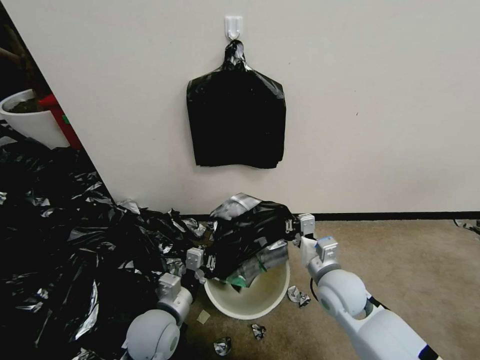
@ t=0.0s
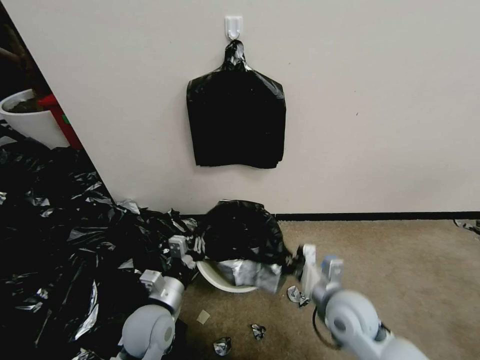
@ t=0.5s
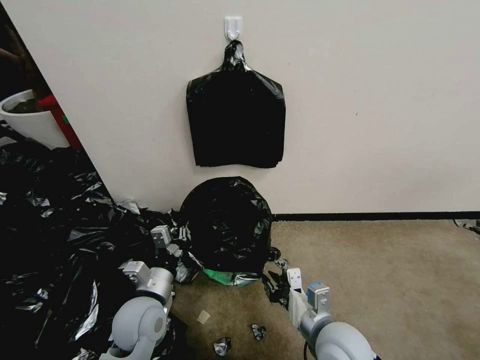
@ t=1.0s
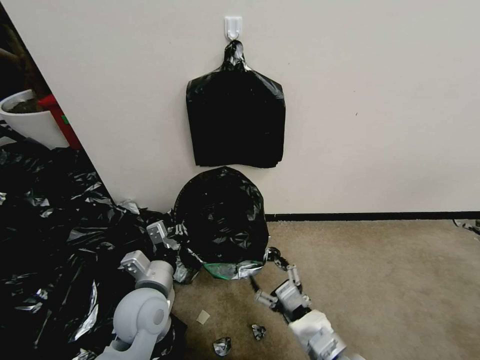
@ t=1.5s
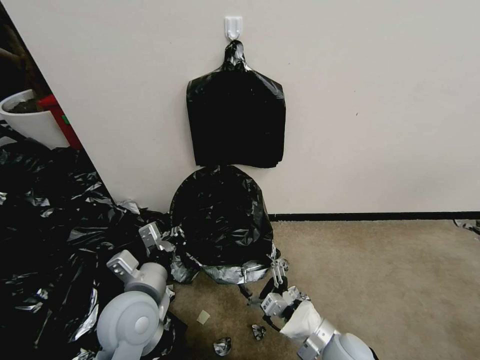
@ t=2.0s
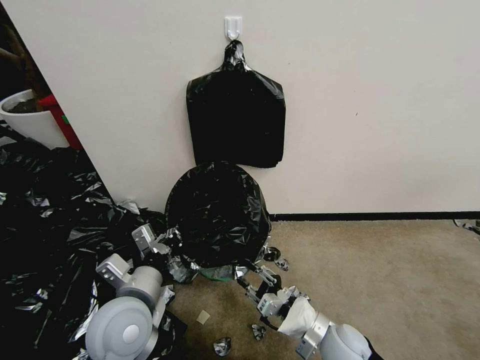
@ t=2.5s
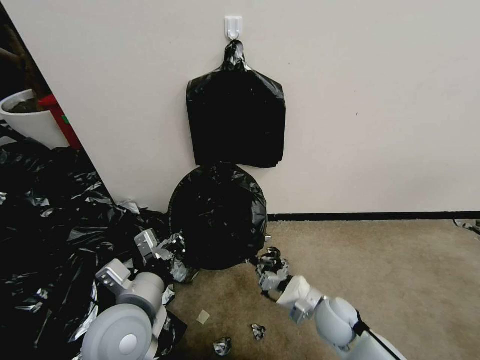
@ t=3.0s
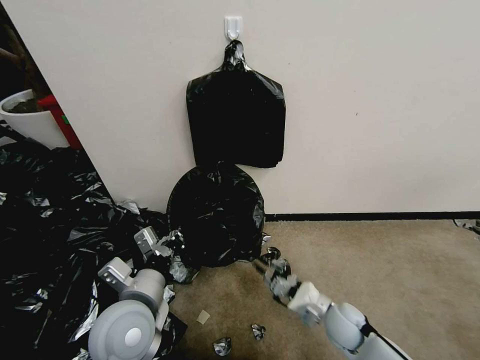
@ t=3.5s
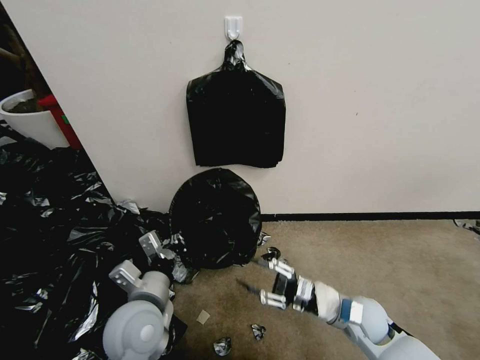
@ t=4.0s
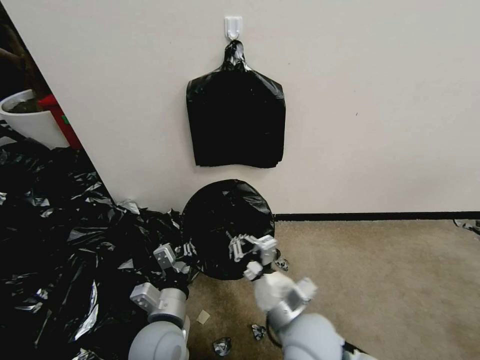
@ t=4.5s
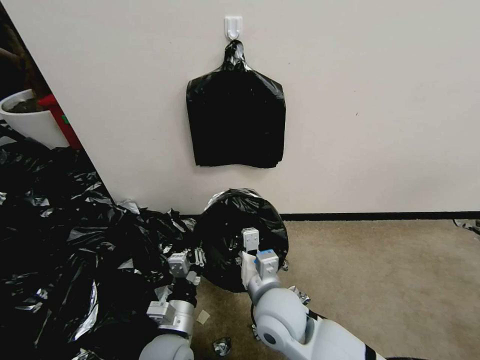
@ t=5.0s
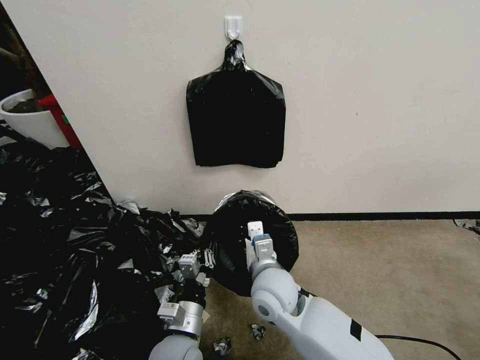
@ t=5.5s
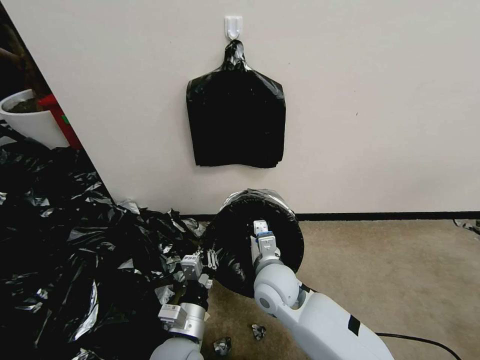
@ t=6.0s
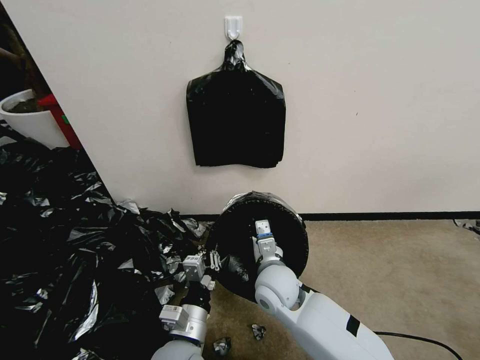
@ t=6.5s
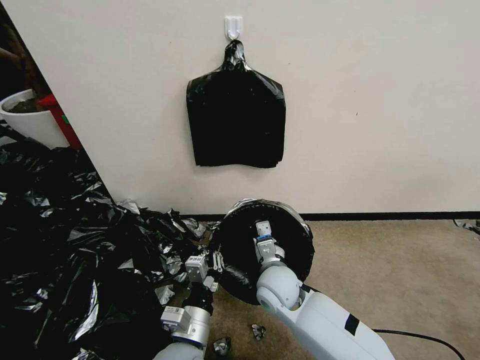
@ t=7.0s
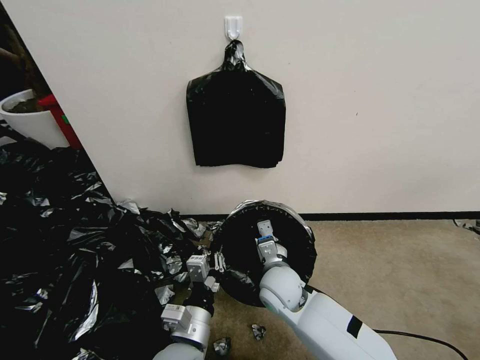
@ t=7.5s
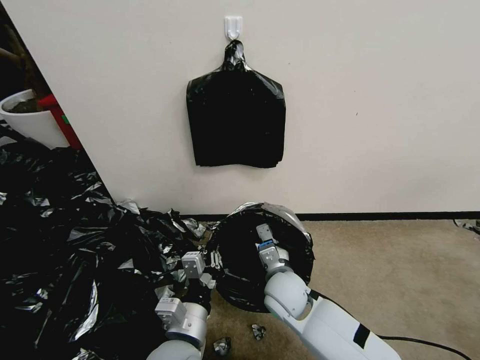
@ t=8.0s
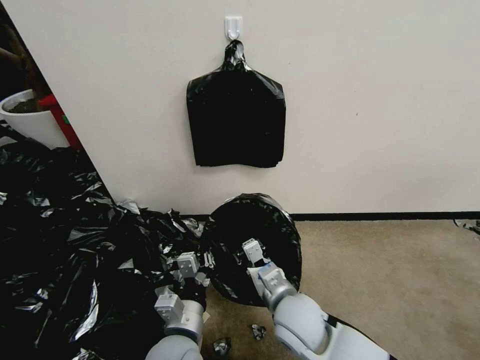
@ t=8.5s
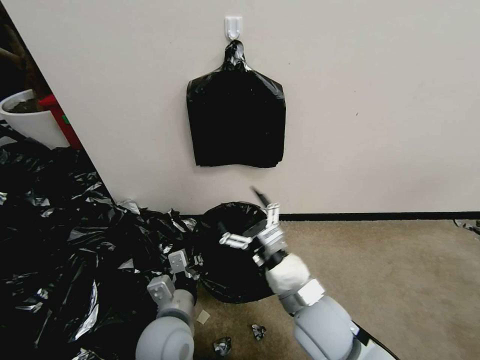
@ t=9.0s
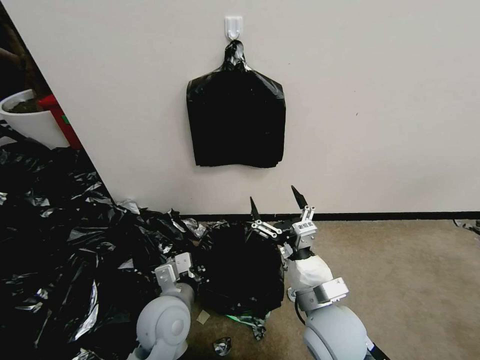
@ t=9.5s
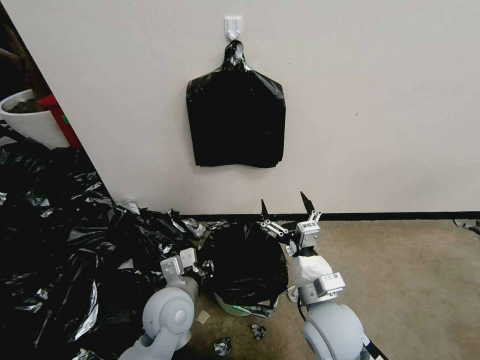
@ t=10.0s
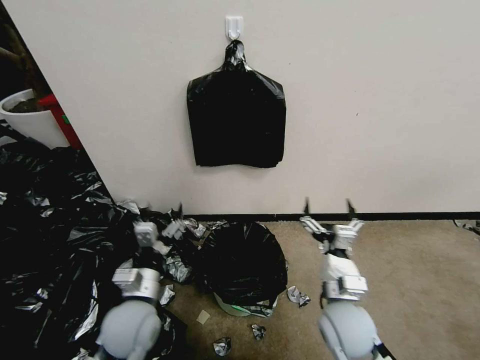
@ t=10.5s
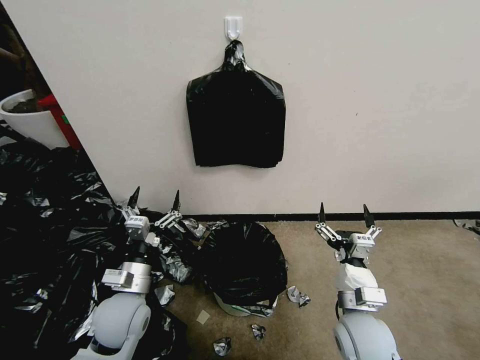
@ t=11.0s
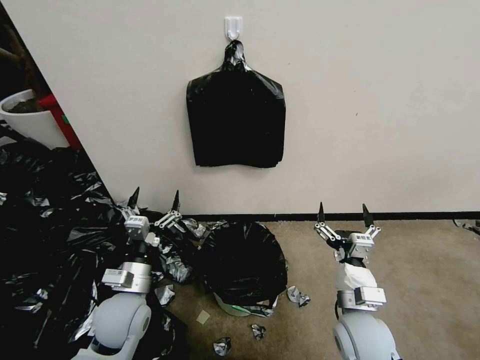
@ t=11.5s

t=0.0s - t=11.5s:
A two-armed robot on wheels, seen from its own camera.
Task of the whole recording: Place a trash bag onto the trash bin.
t=0.0s - t=2.0s: The right gripper heads backward and downward, covering some 15 cm, and opens. Meanwhile the left gripper heads upward, covering about 10 cm.
t=2.0s - t=4.0s: The right gripper travels forward and to the right by about 10 cm, goes downward and returns, about 10 cm each way, and closes its fingers.
t=4.0s - t=6.0s: The right gripper is displaced to the left by about 20 cm, and closes up. Meanwhile the left gripper shifts approximately 10 cm downward and to the right.
t=6.0s - t=7.5s: The grippers stay close to where they were, moving slightly.
t=7.5s - t=9.5s: The left gripper is displaced forward by approximately 10 cm. The right gripper heads backward, upward and to the right, covering approximately 15 cm, and opens up.
t=9.5s - t=11.5s: The right gripper shifts about 10 cm to the right and downward, while the left gripper heads to the left, covering approximately 10 cm, and opens up.
